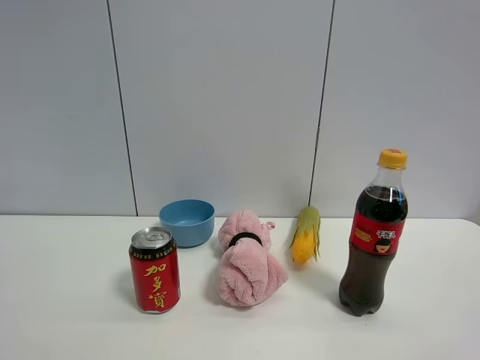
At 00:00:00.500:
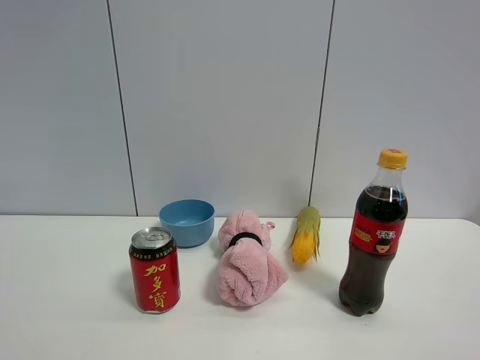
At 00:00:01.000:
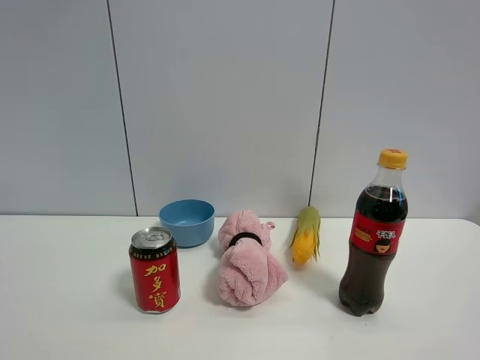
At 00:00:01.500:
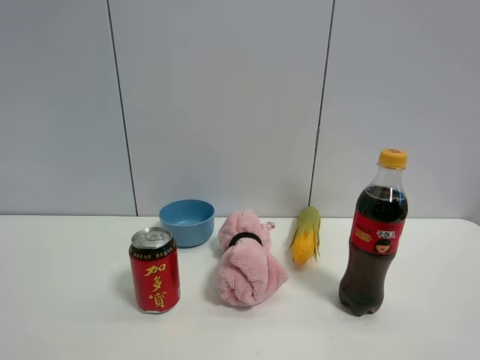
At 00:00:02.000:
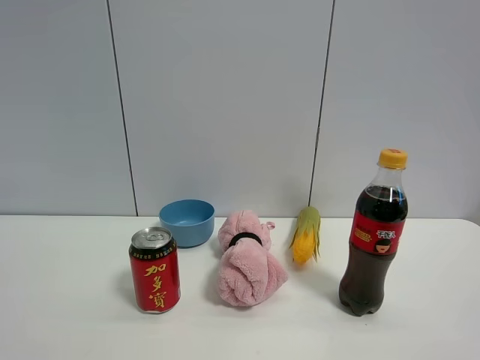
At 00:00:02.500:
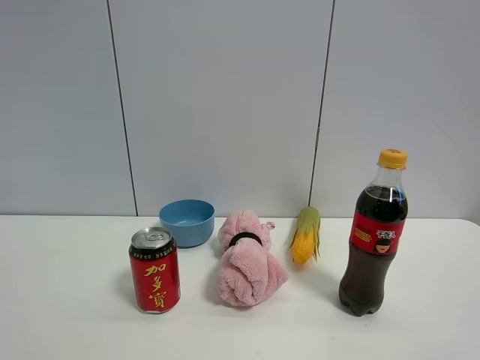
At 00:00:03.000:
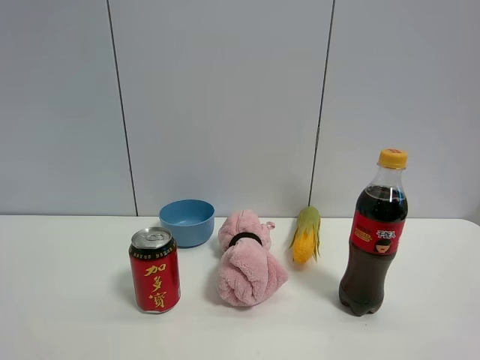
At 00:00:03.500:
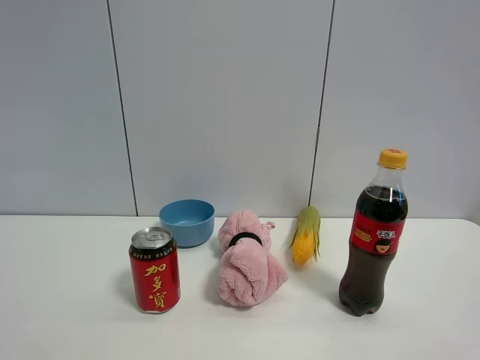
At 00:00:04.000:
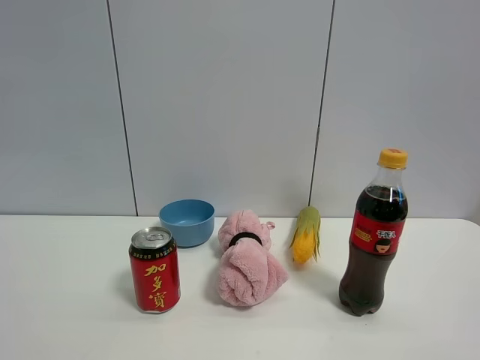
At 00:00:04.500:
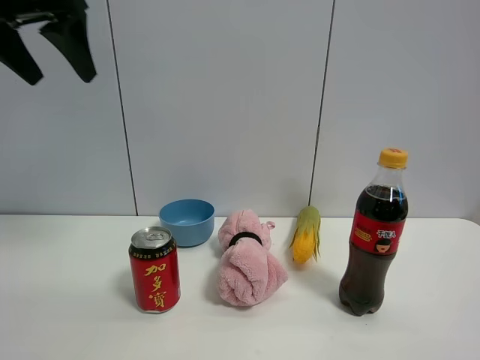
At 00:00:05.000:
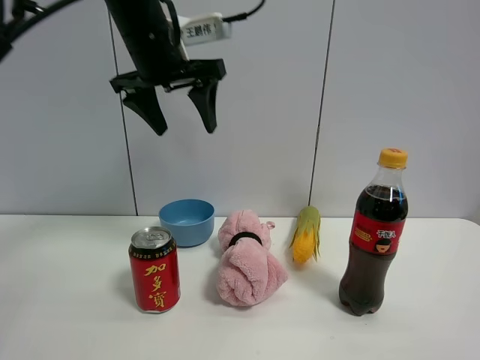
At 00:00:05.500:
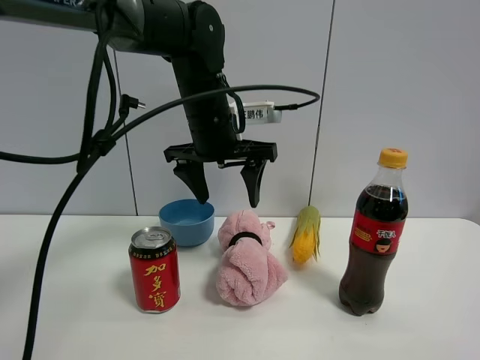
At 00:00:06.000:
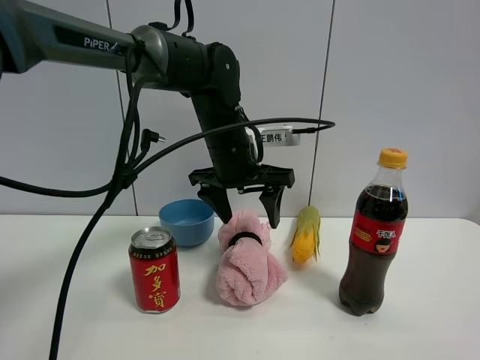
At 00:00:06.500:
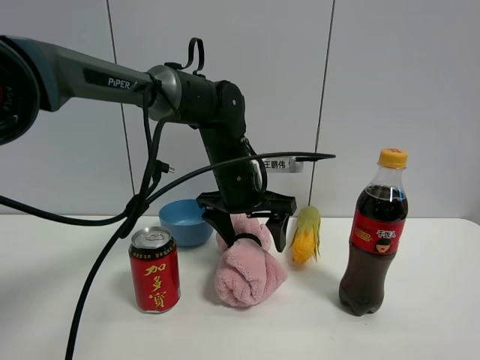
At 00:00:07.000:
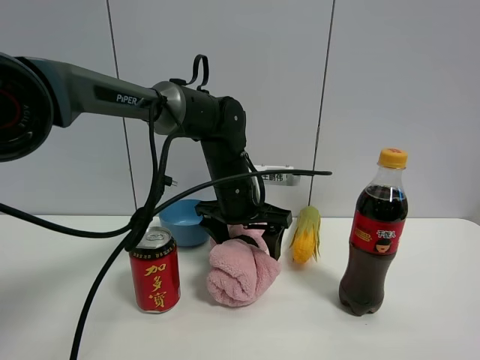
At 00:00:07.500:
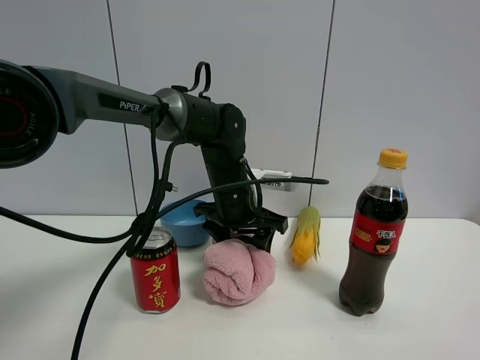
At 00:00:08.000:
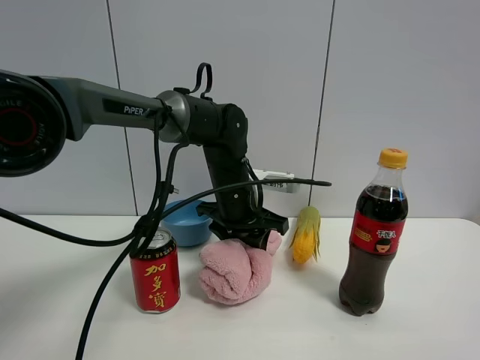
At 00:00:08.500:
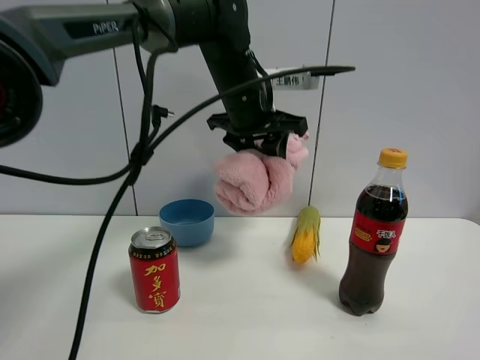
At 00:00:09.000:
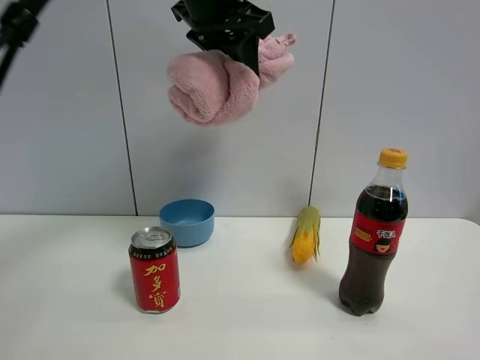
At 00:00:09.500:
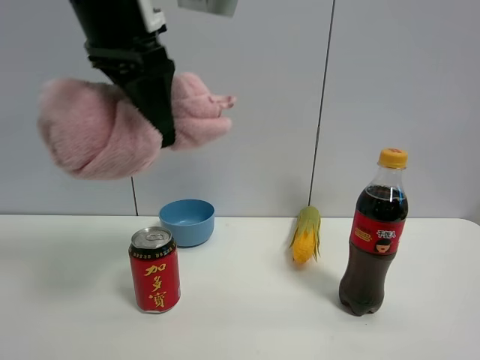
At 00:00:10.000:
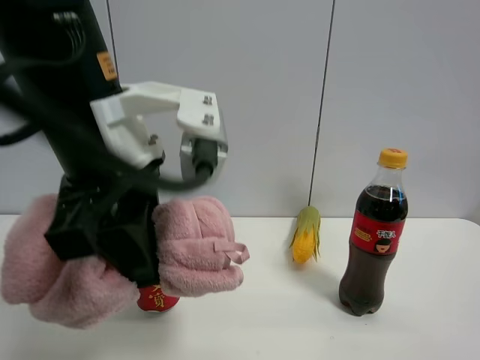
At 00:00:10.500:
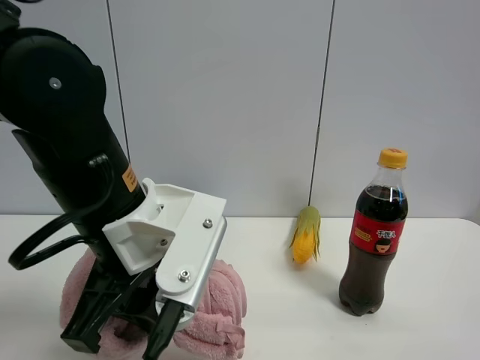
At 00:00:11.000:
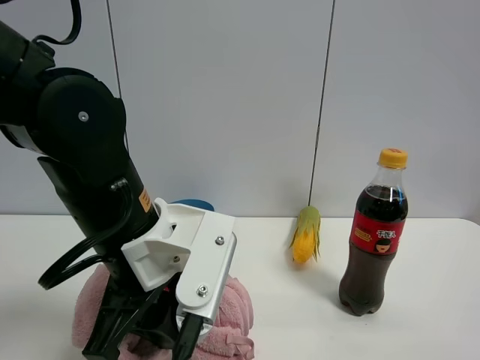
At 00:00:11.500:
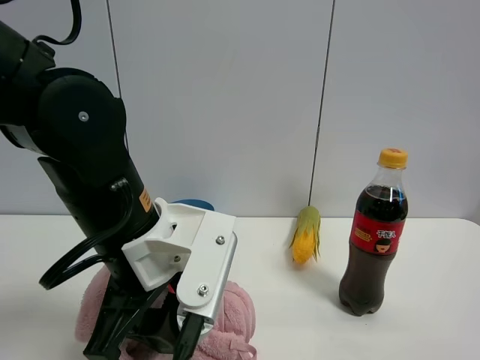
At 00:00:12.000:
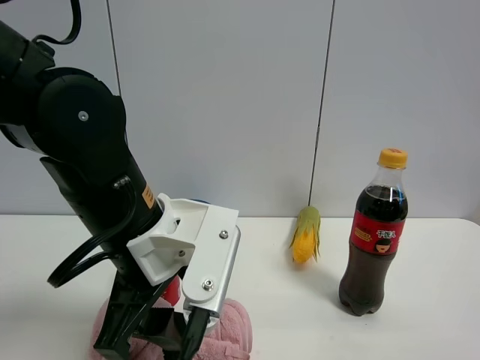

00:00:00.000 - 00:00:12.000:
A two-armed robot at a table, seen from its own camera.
Task of the whole recording: the gripper move the object.
Step, 00:00:00.000 - 00:00:07.500: Grasp the pink towel with the left gripper.
Step, 00:00:08.000 - 00:00:11.500: Place the pink towel on the table with the left gripper.
00:00:00.000 - 00:00:02.000: The two grippers keep their place.
00:00:04.000 - 00:00:06.000: The left gripper is displaced to the right, forward and downward by approximately 40 cm.
00:00:06.000 - 00:00:08.000: The left gripper shifts about 5 cm downward, and closes up.
00:00:08.000 - 00:00:10.000: The left gripper goes some 25 cm backward, upward and to the left.
00:00:10.000 - 00:00:12.000: The left gripper heads downward, covering roughly 10 cm, and opens its fingers.

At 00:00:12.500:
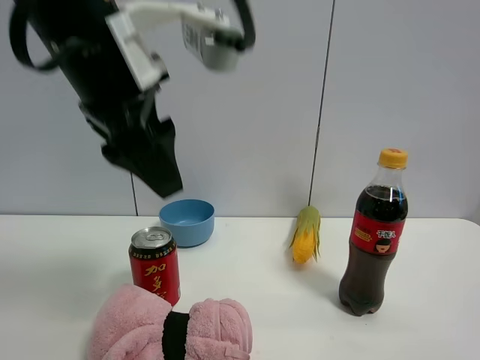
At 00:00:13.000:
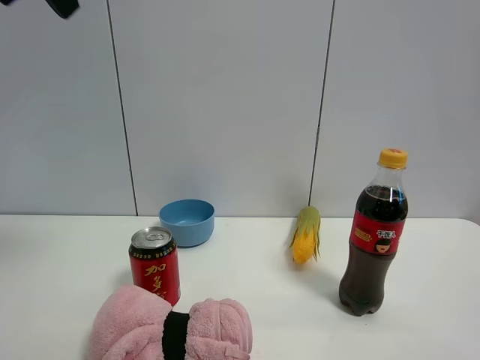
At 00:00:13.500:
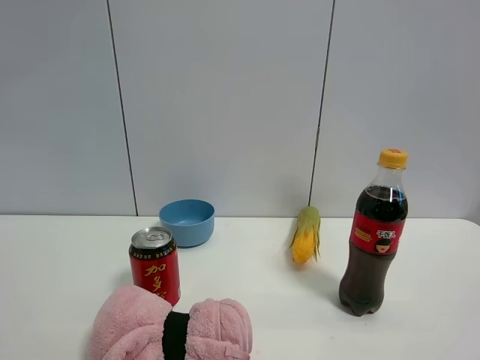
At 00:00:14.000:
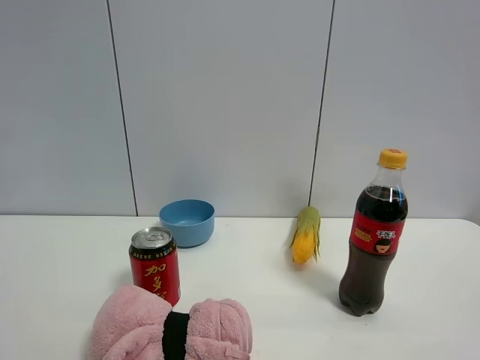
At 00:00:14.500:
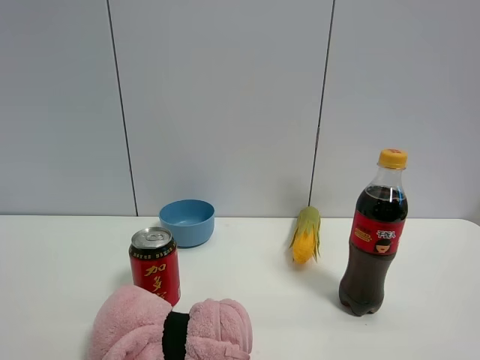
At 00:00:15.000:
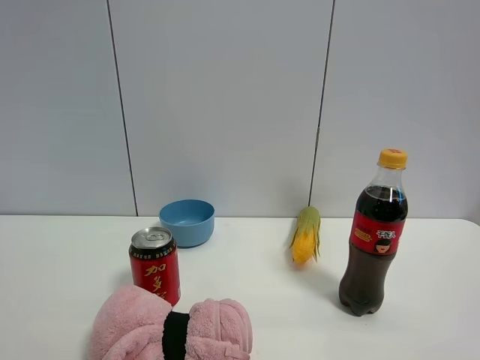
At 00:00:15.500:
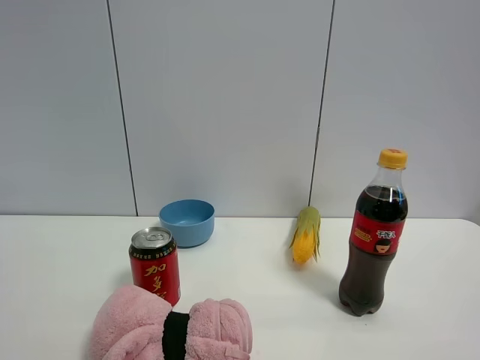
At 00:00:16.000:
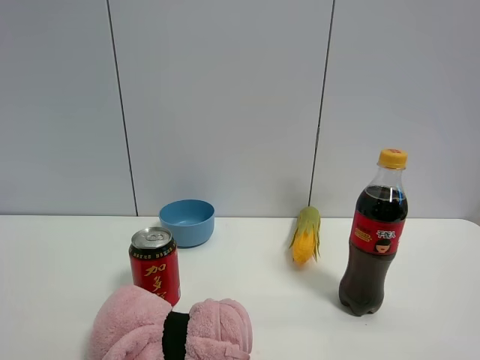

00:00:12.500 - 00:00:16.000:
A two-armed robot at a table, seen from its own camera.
Task of the whole recording: the gripper move the object.
00:00:12.500 - 00:00:14.500: The left gripper travels backward and to the left by some 35 cm.

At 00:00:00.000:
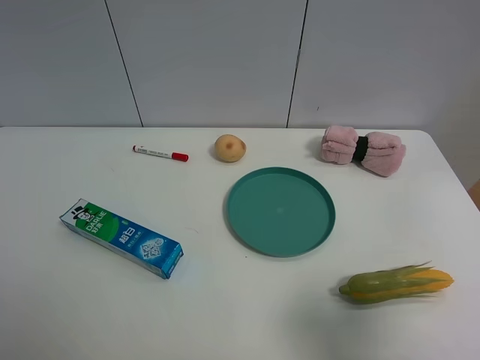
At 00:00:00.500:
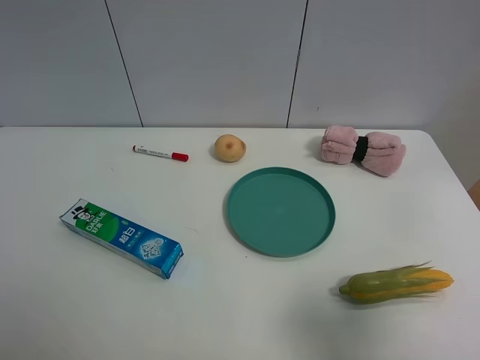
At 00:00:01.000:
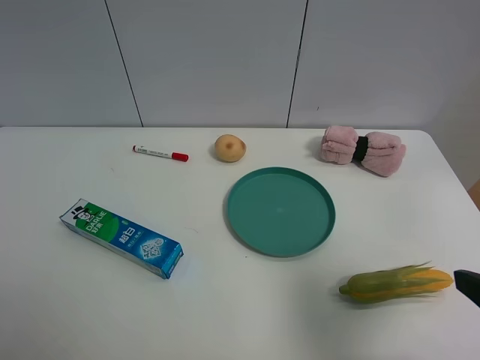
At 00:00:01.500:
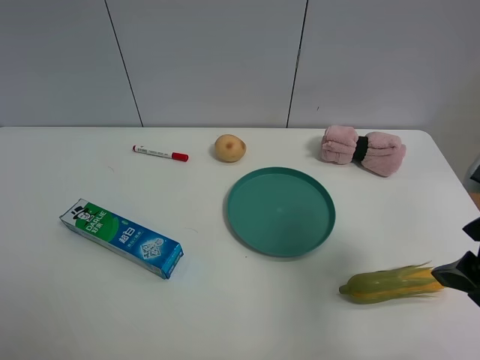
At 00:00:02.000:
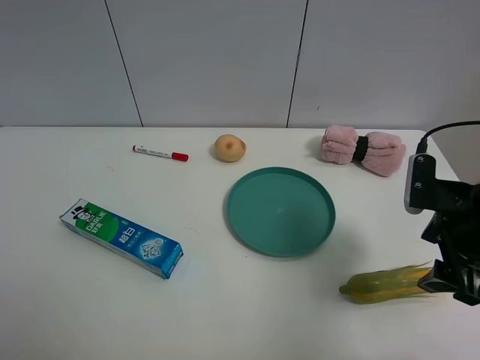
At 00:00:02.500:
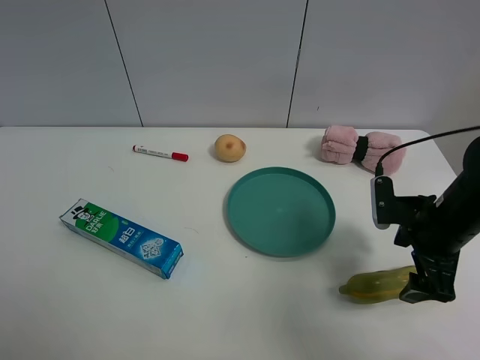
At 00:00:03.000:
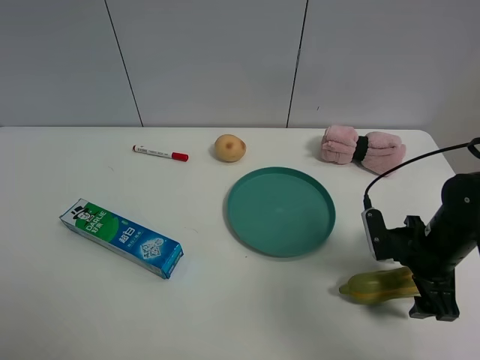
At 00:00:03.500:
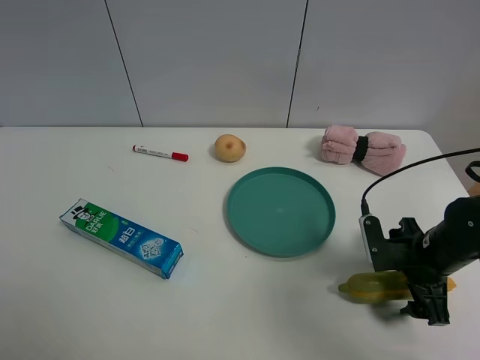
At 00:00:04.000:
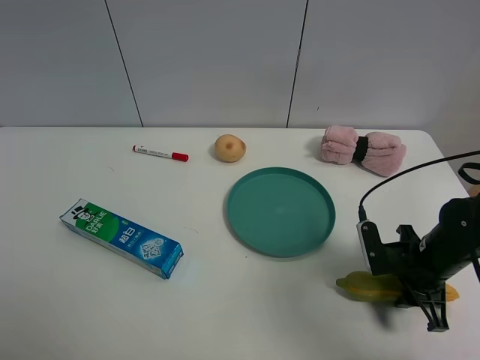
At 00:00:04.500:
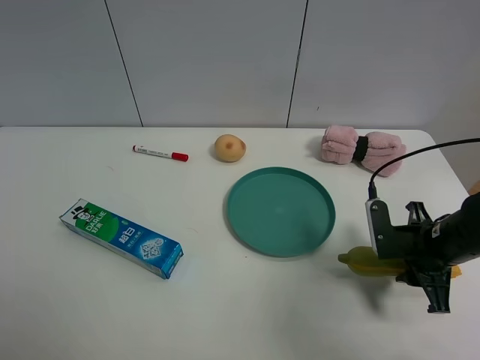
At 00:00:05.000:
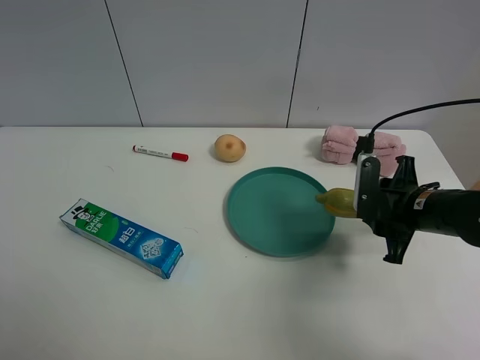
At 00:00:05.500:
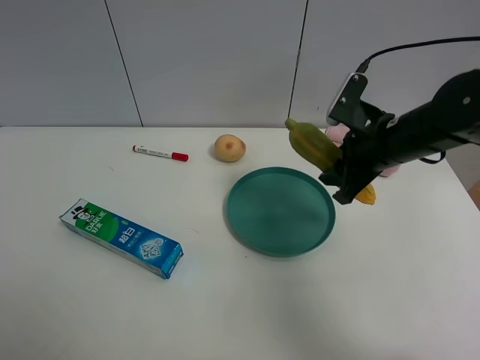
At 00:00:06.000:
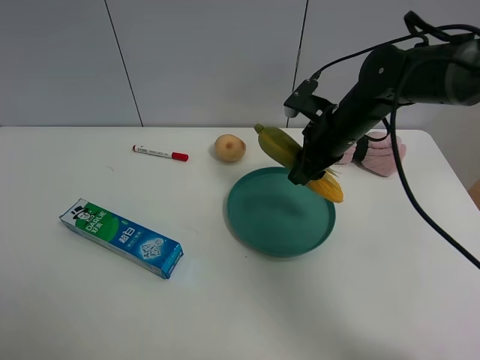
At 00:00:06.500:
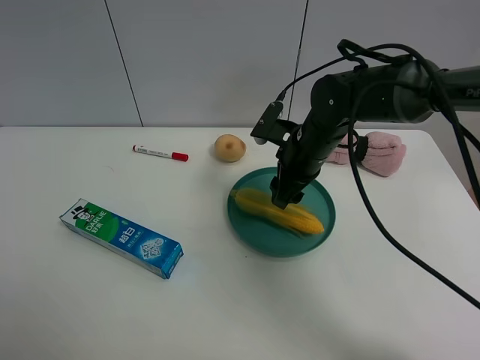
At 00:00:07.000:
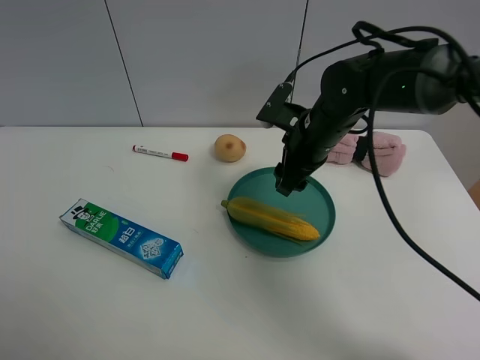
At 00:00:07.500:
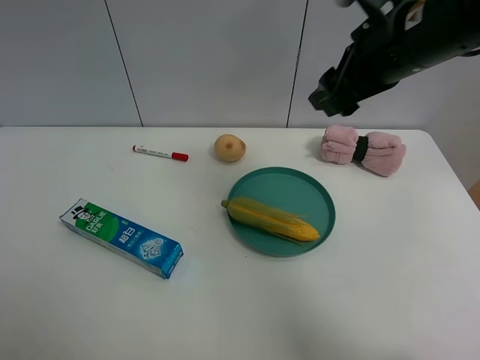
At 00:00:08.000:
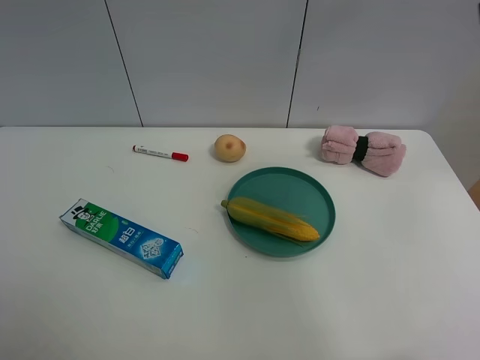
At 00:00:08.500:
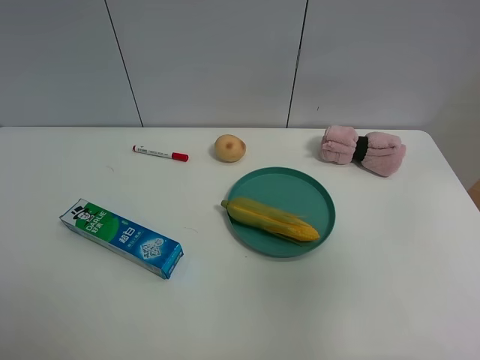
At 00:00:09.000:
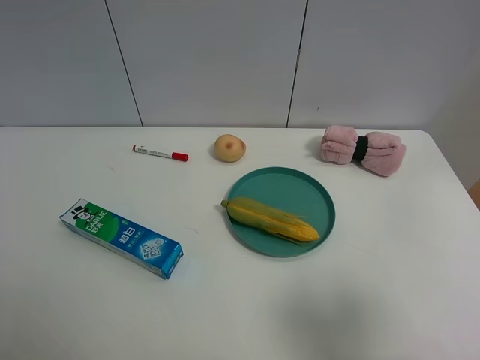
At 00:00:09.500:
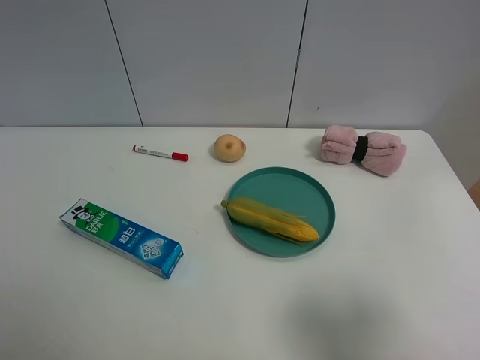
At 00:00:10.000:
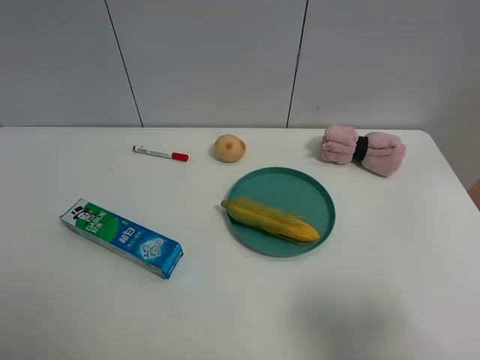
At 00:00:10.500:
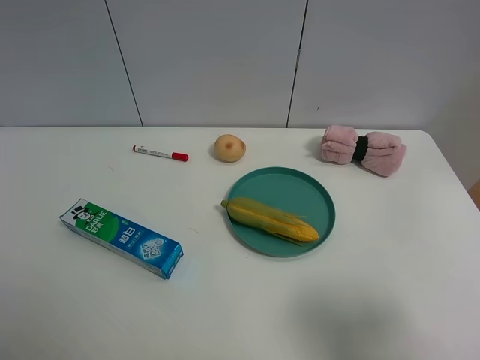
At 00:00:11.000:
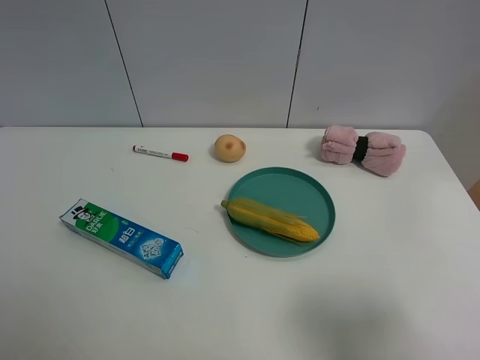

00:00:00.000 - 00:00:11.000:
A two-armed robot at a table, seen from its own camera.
Task of the whole recording: the gripper move the object.
Step, 00:00:00.000 - 00:00:04.000: Grasp the corn with the right gripper.
Step, 00:00:04.500 - 00:00:06.500: Place the corn on the table with the right gripper.
00:00:00.000 - 00:00:02.000: The right gripper moves forward, some 20 cm, and closes.
00:00:02.000 - 00:00:03.500: The right gripper is displaced downward by roughly 10 cm.
00:00:03.500 - 00:00:05.500: The right gripper travels upward, forward and to the left by some 20 cm, and closes up.
00:00:05.500 - 00:00:07.500: The right gripper moves upward, approximately 15 cm, and opens up.
00:00:07.500 - 00:00:09.000: The right gripper shifts roughly 30 cm backward, and opens.
